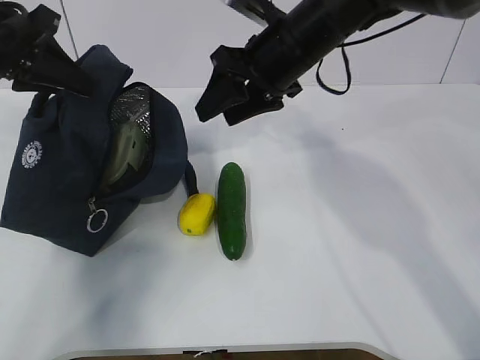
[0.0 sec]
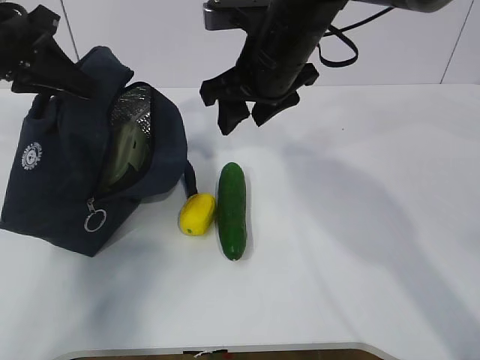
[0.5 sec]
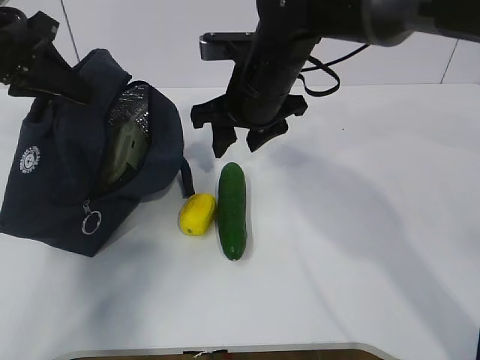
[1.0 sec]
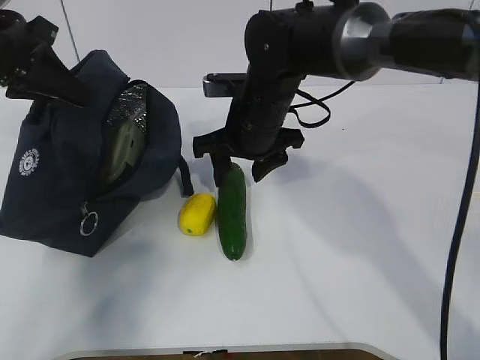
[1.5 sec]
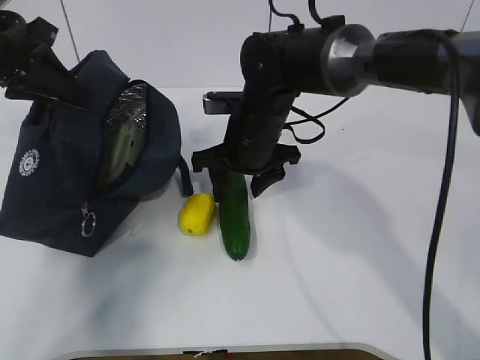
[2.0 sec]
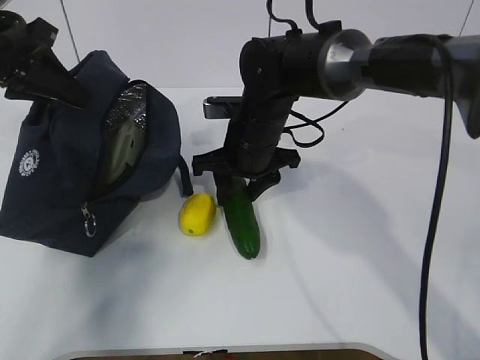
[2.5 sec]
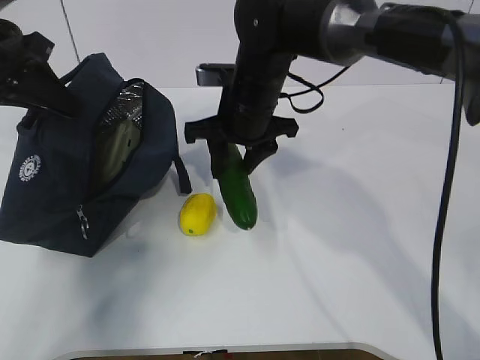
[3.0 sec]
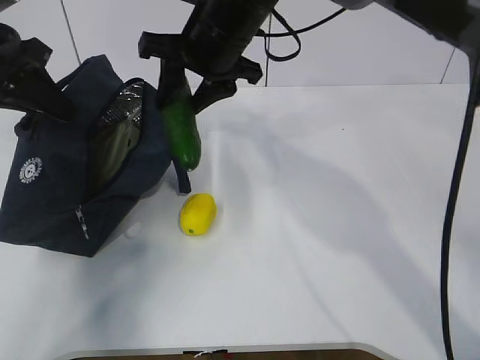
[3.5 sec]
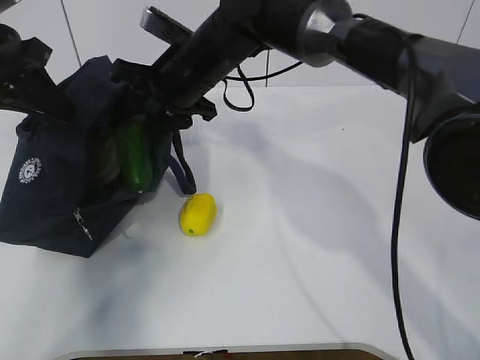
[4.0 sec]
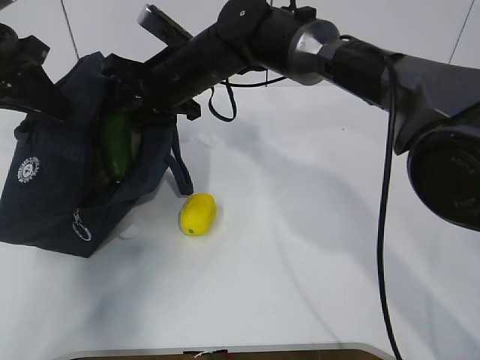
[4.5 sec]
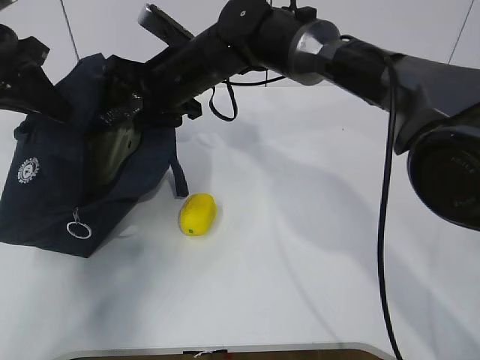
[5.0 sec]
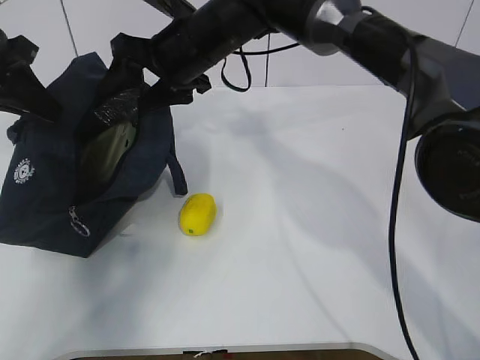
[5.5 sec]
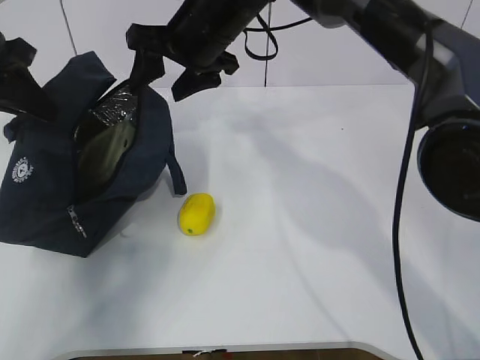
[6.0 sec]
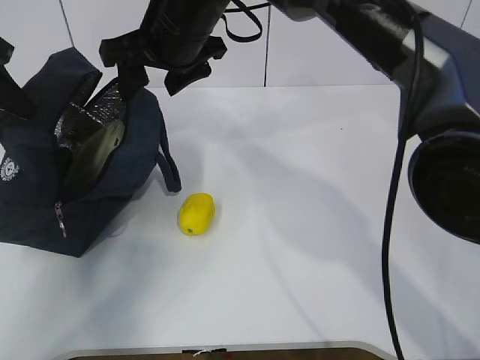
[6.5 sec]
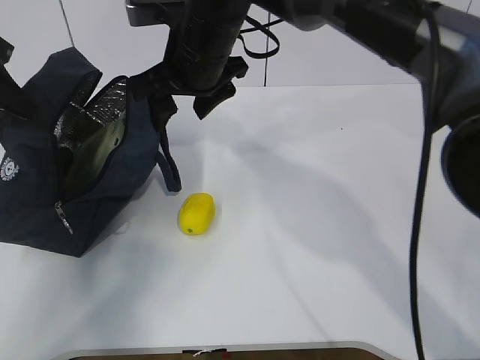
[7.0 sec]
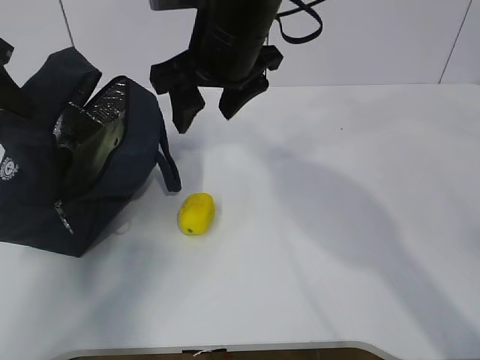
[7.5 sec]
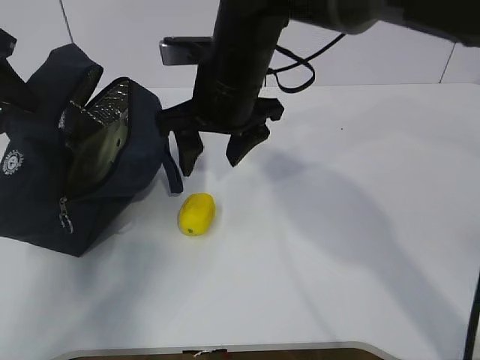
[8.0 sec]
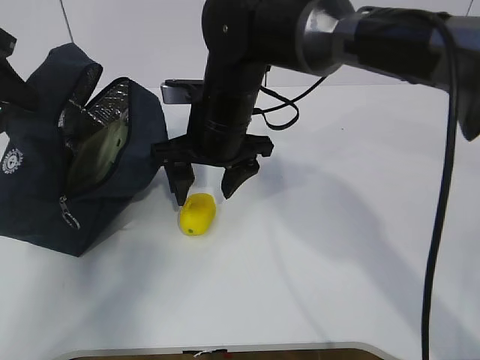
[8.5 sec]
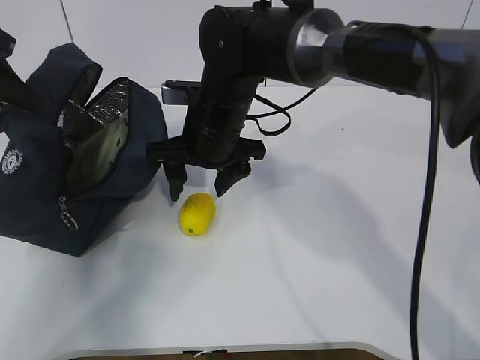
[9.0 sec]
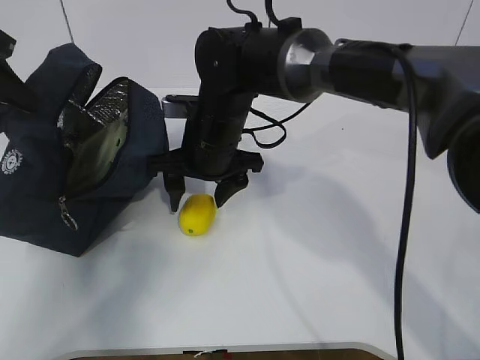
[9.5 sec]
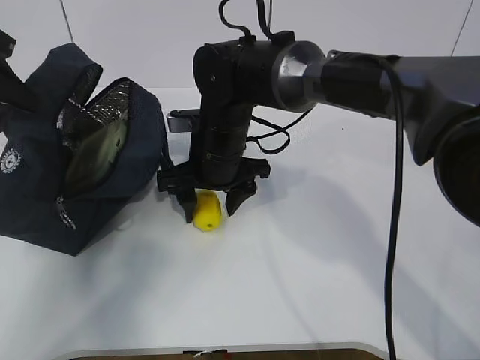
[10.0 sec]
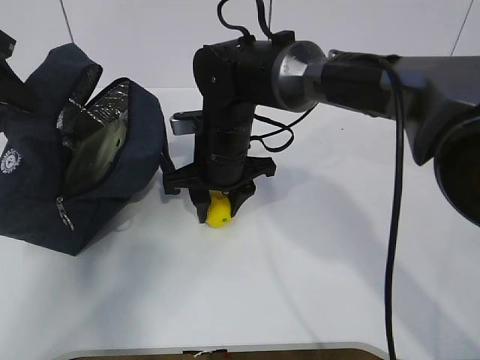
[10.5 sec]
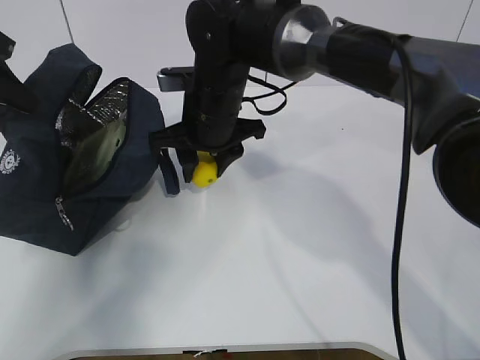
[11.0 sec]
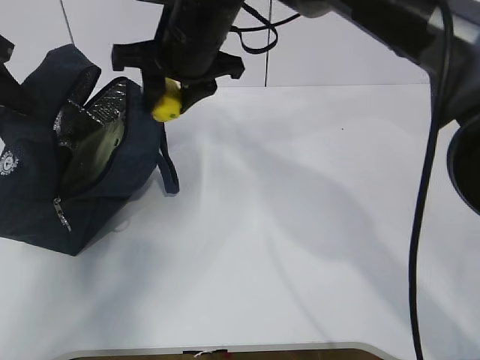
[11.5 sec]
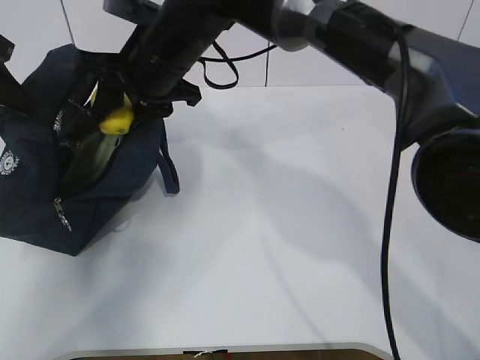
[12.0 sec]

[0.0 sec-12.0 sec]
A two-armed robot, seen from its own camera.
Step, 0.0 sec to 1.0 sec: Place it into the bag with your right hand.
Step, 1.5 sec to 5.5 sec: Grab the lemon with your right hand.
Step, 6.0 sec to 7.5 sec: Secure the lunch bag with your left hand.
Step, 8.0 sec to 9.5 sec: Grab the lunch bag with your right hand.
0.0 sec to 2.0 sec: The right gripper shifts some 10 cm downward.
2.0 sec to 4.0 sec: The right gripper is displaced upward and to the left by some 10 cm.
4.0 sec to 6.0 sec: The grippers move only a little.
6.0 sec to 8.0 sec: The right gripper goes some 5 cm backward.
8.0 sec to 10.0 sec: The right gripper goes roughly 10 cm downward.
10.0 sec to 12.0 sec: The right gripper is displaced upward by approximately 10 cm, and closes up.

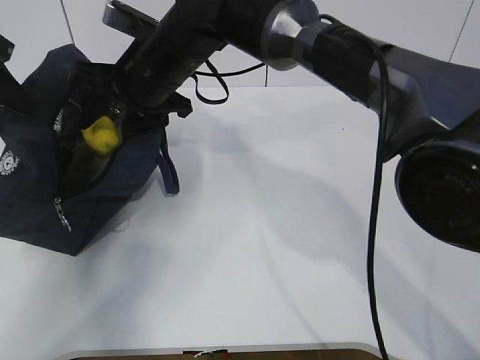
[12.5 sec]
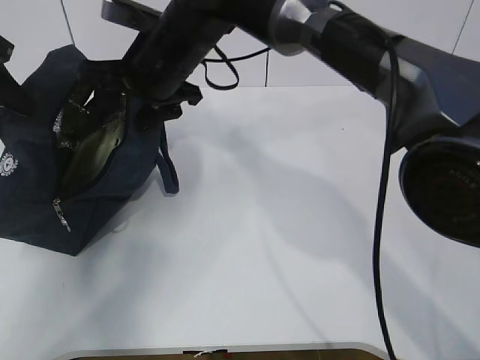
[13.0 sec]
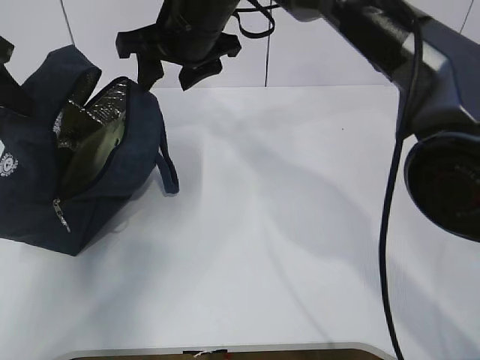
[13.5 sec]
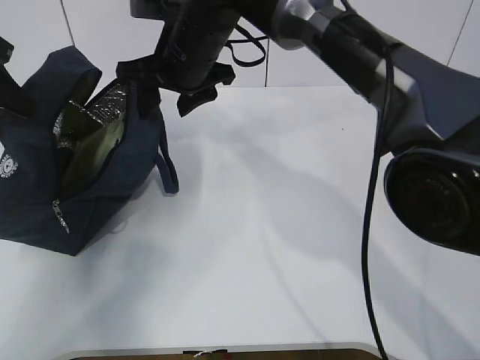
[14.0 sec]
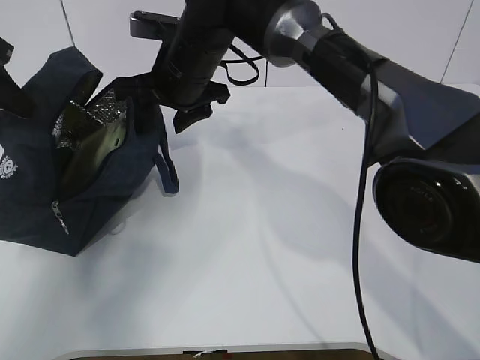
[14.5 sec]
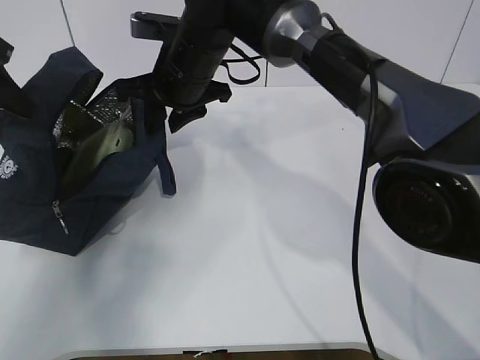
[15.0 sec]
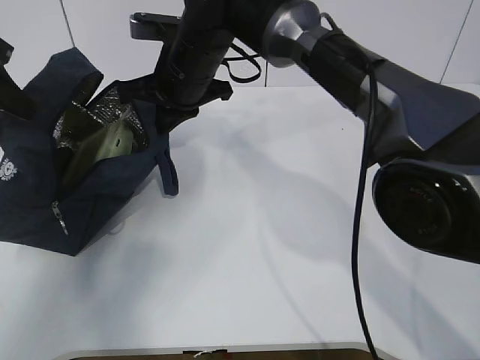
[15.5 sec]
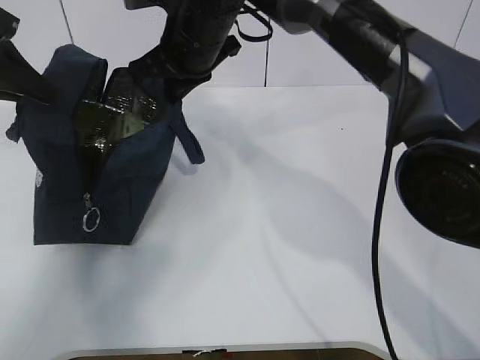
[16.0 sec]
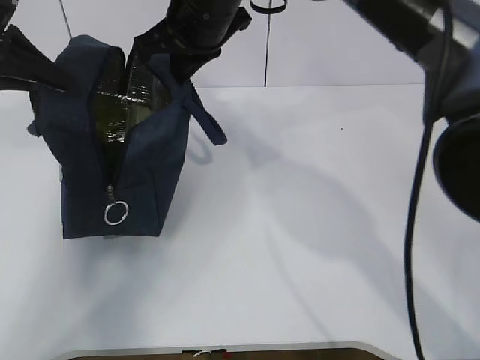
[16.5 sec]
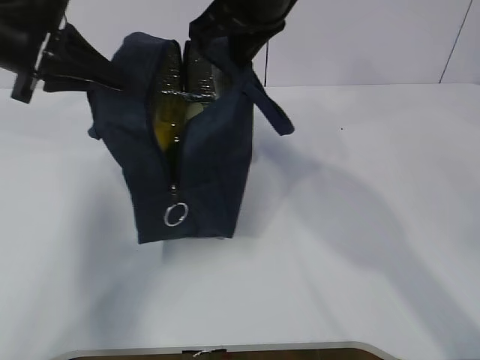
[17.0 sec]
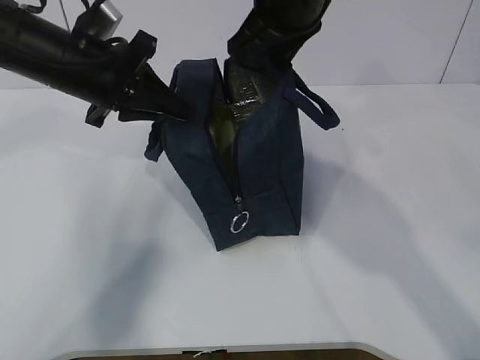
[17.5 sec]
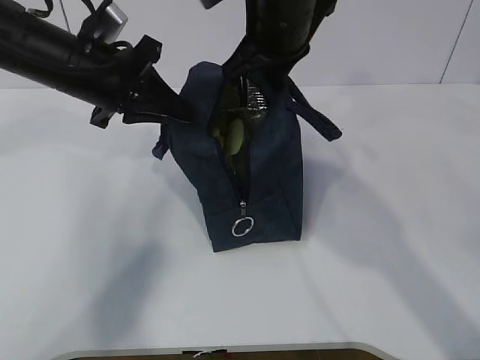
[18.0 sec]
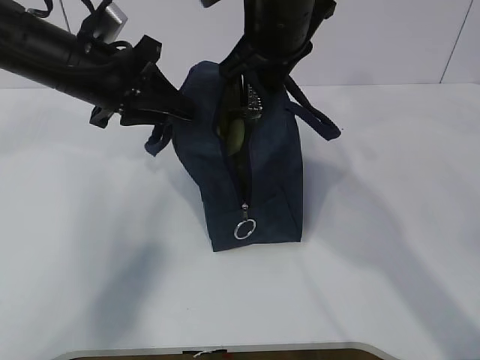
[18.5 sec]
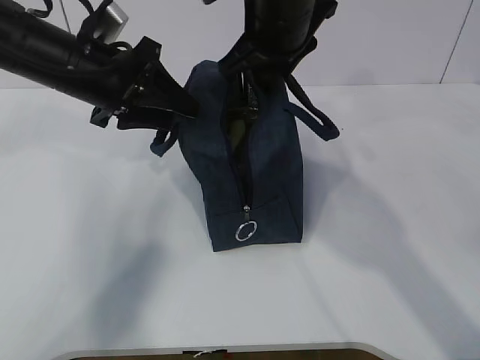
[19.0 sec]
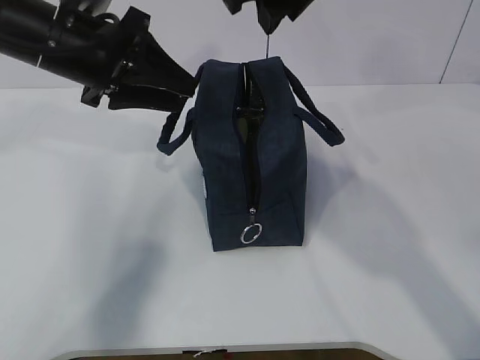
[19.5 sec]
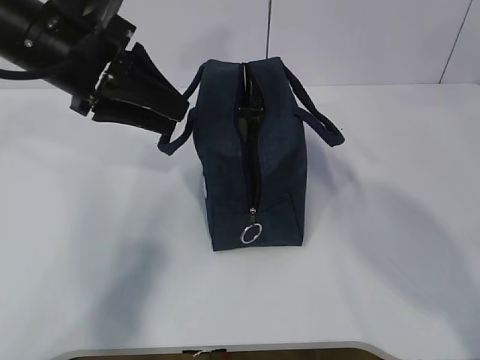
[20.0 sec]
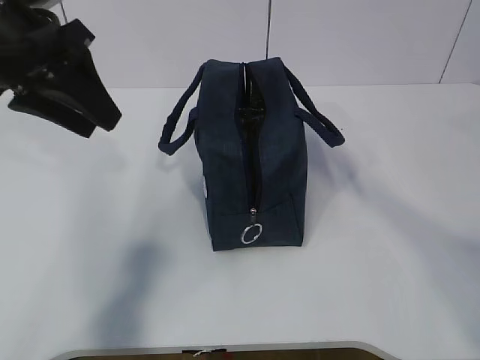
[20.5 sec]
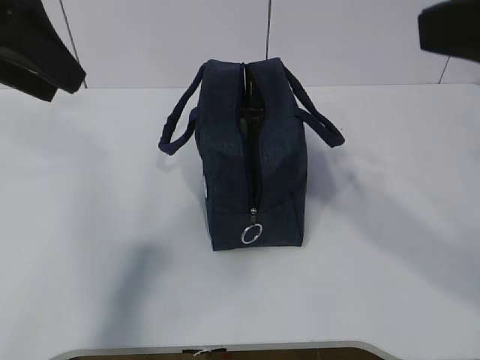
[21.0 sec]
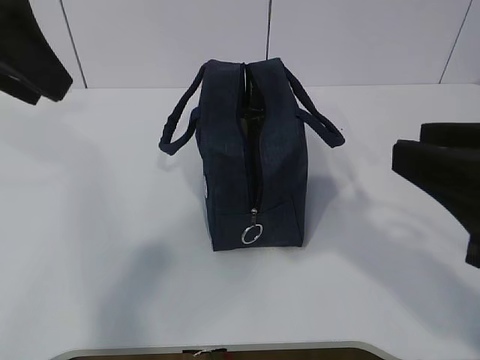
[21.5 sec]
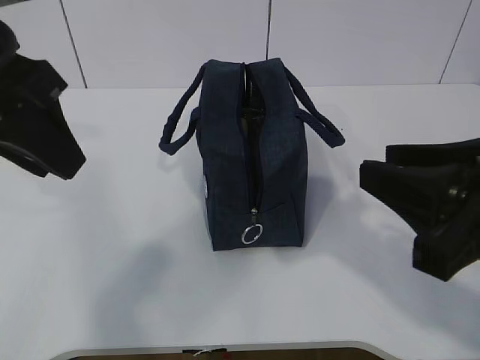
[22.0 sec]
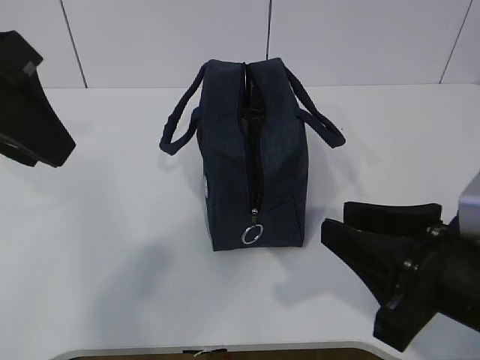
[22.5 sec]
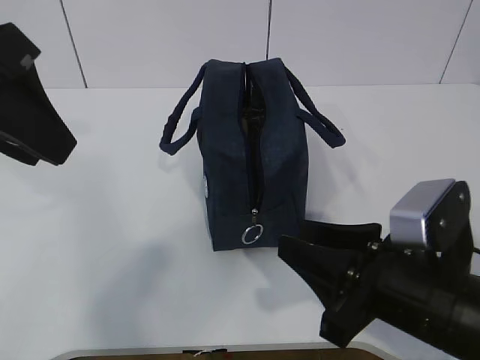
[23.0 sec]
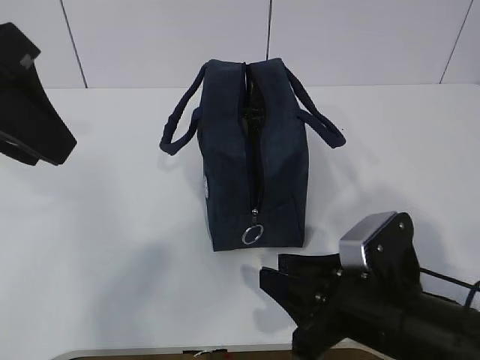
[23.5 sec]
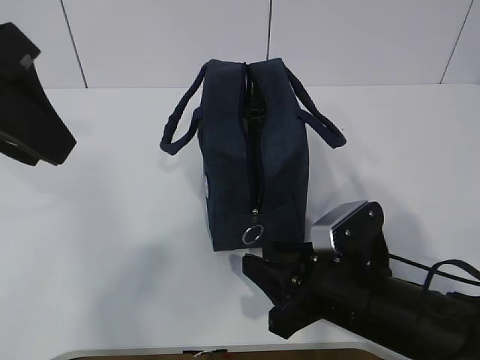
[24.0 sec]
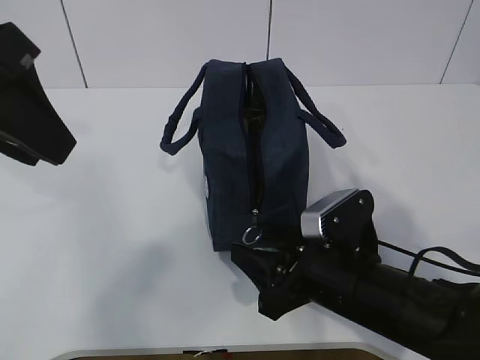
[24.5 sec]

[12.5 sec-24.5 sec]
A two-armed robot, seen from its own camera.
14.5 sec to 16.5 sec: The right gripper heads upward, covering roughly 5 cm, and closes its fingers.
16.5 sec to 18.5 sec: The left gripper heads to the right and downward, covering approximately 15 cm. Meanwhile the right gripper moves to the right, some 5 cm.
18.5 sec to 20.5 sec: The right gripper heads backward, upward and to the right, covering approximately 25 cm; the left gripper travels upward and backward by approximately 10 cm, and opens its fingers.
20.5 sec to 22.5 sec: The left gripper travels backward by some 10 cm, while the right gripper travels downward by some 25 cm.
22.5 sec to 24.5 sec: The right gripper heads downward, forward and to the left, covering approximately 15 cm.

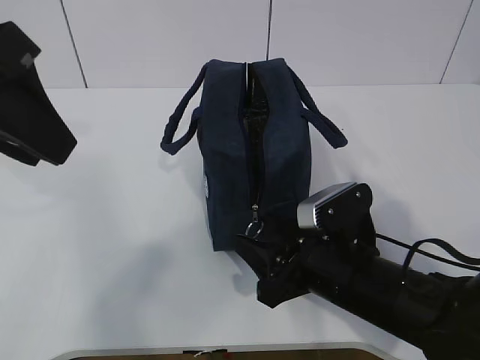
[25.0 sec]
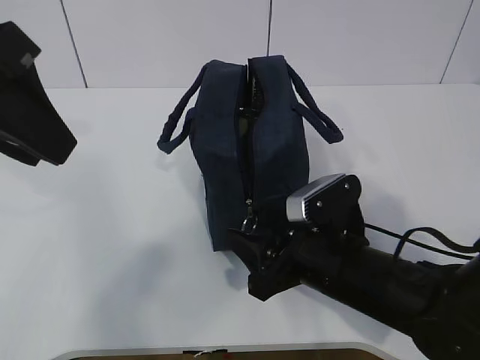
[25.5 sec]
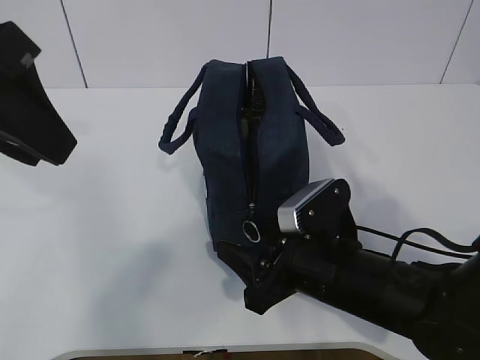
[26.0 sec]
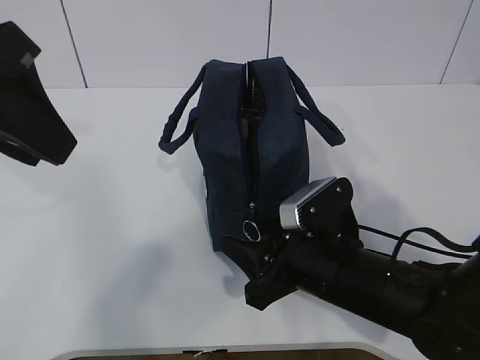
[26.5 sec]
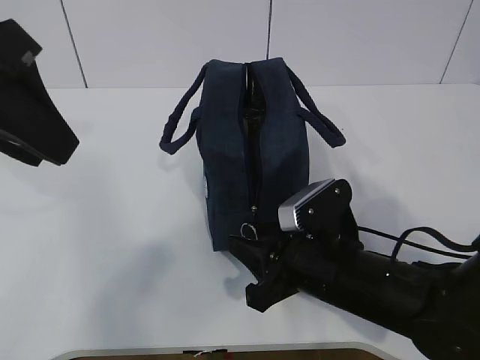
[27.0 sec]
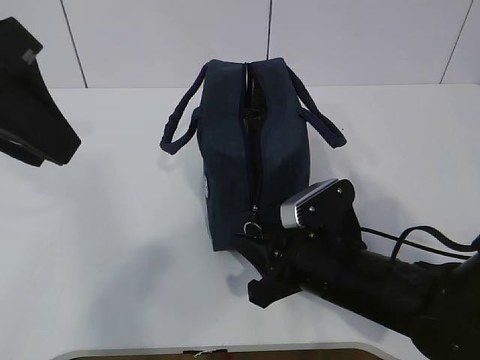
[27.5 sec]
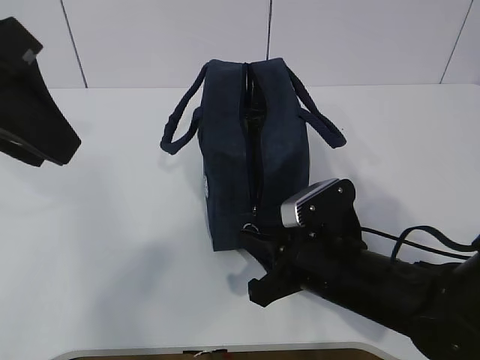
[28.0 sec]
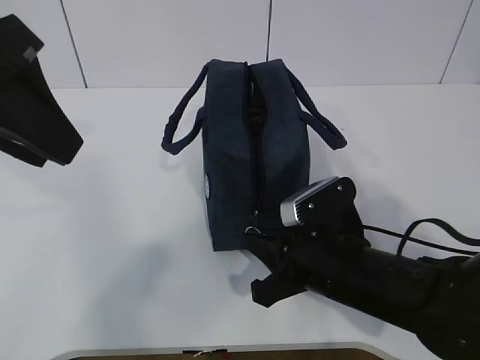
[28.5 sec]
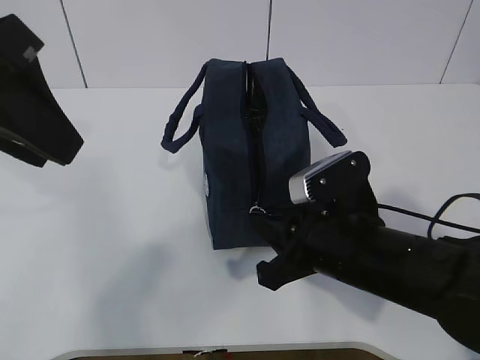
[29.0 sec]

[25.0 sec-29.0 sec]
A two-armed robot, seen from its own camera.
25.0 sec to 27.0 sec: The grippers make only small movements.
27.0 sec to 29.0 sec: The right gripper closes its fingers.
